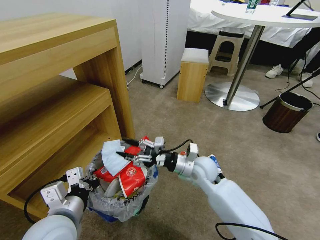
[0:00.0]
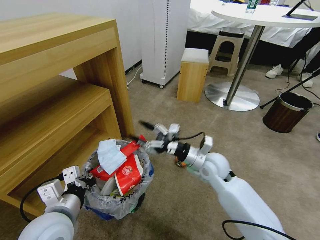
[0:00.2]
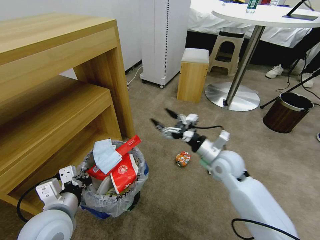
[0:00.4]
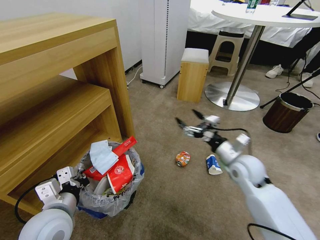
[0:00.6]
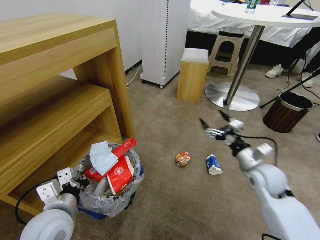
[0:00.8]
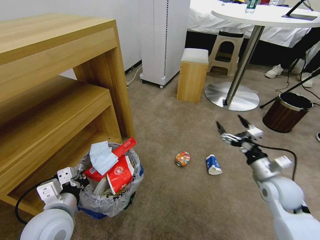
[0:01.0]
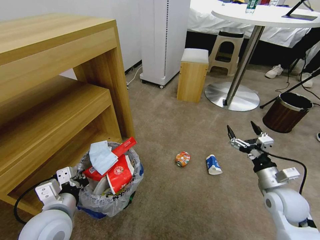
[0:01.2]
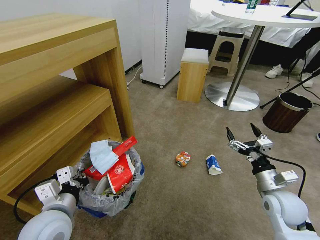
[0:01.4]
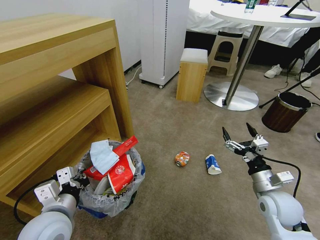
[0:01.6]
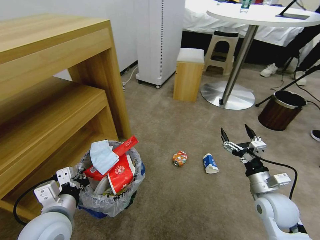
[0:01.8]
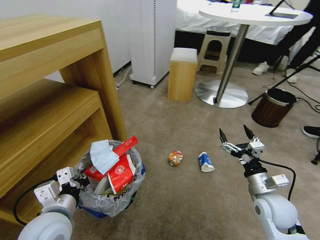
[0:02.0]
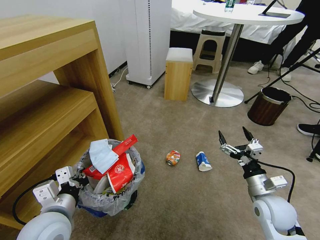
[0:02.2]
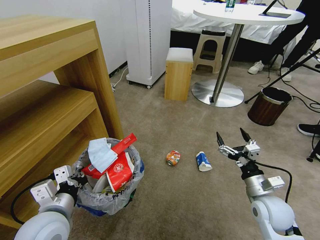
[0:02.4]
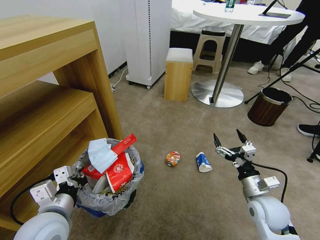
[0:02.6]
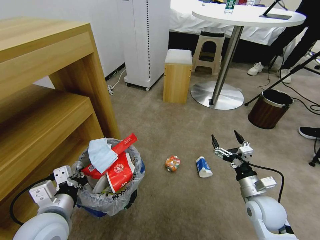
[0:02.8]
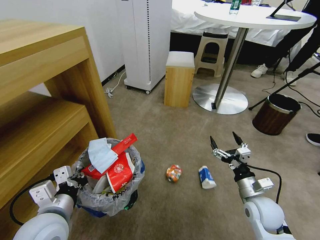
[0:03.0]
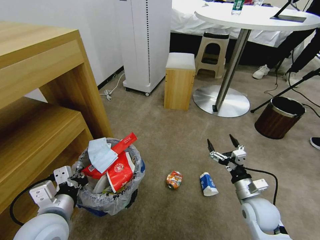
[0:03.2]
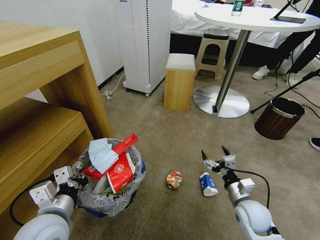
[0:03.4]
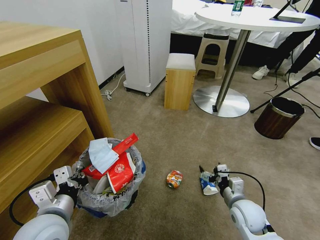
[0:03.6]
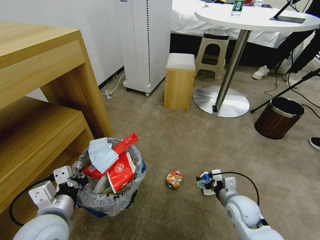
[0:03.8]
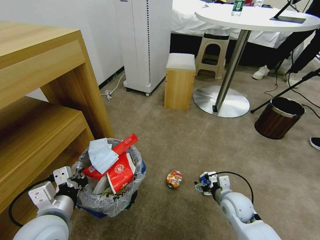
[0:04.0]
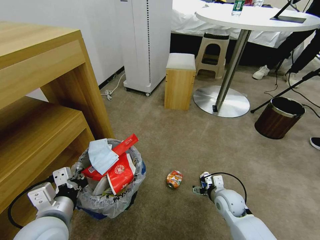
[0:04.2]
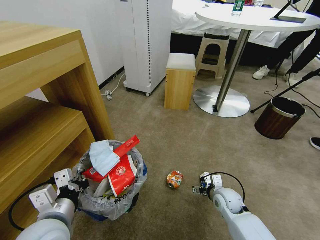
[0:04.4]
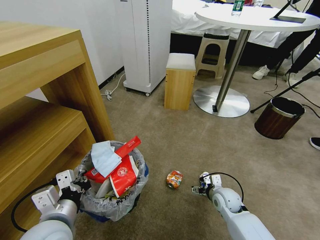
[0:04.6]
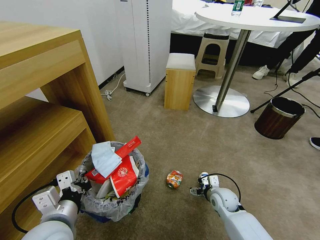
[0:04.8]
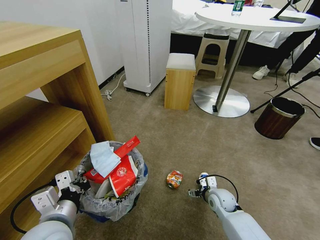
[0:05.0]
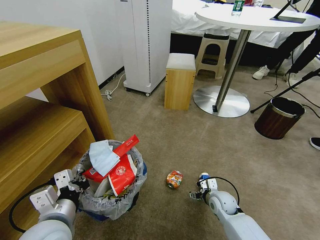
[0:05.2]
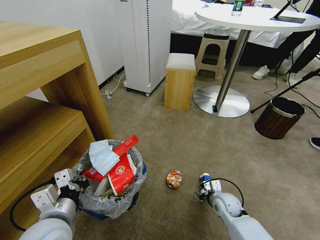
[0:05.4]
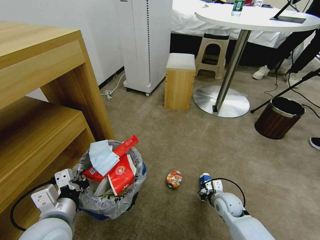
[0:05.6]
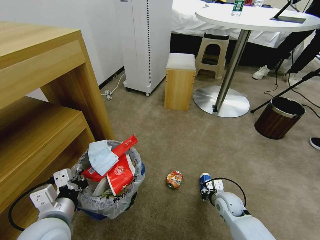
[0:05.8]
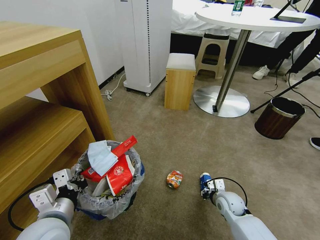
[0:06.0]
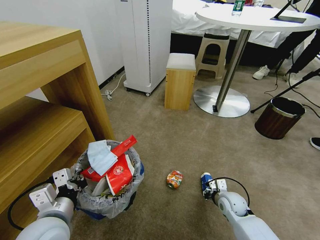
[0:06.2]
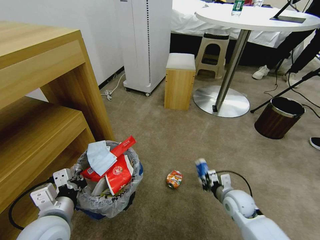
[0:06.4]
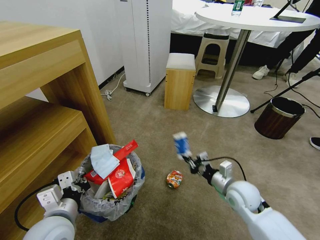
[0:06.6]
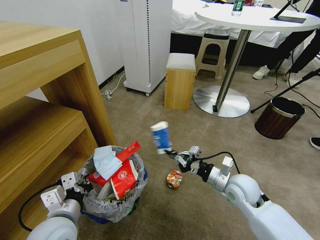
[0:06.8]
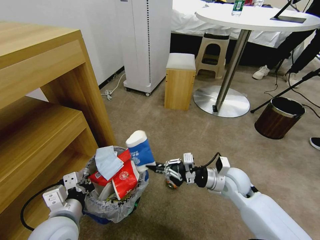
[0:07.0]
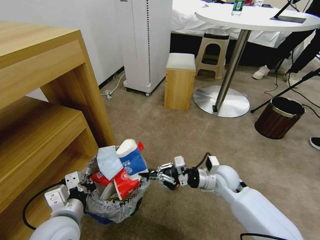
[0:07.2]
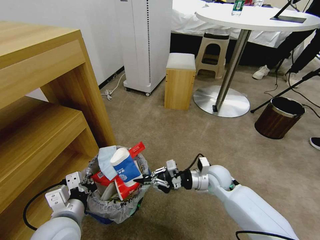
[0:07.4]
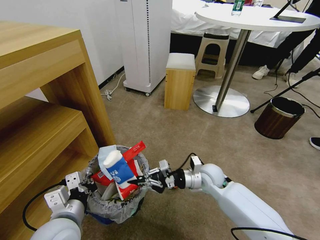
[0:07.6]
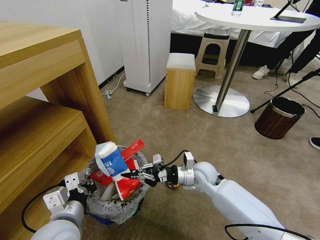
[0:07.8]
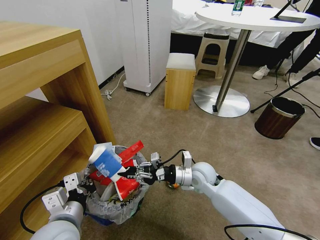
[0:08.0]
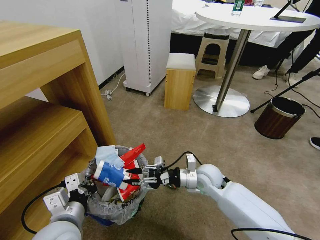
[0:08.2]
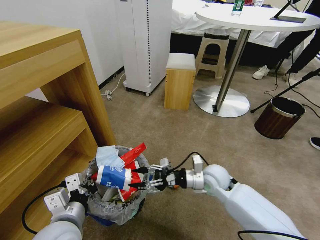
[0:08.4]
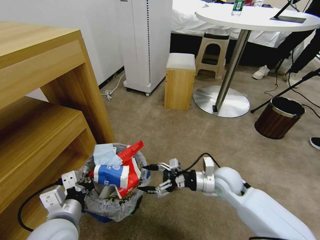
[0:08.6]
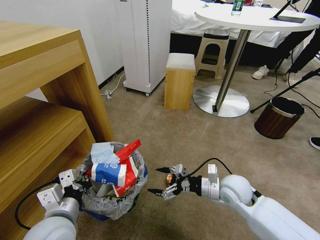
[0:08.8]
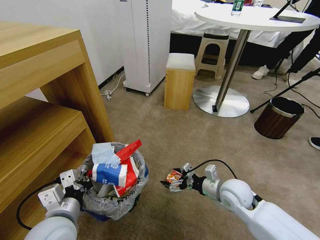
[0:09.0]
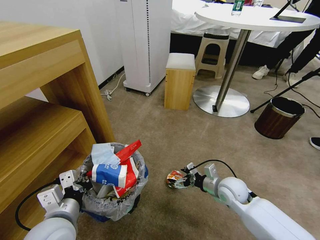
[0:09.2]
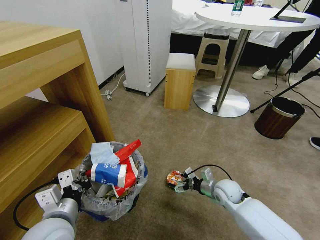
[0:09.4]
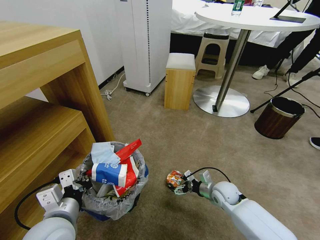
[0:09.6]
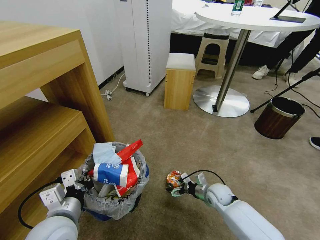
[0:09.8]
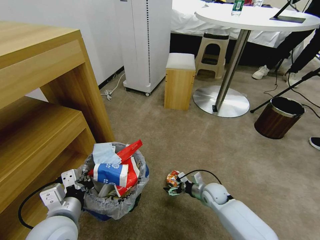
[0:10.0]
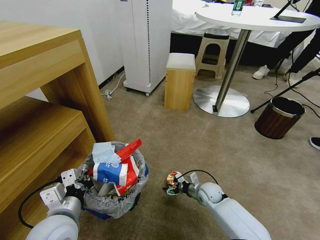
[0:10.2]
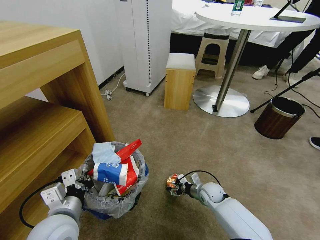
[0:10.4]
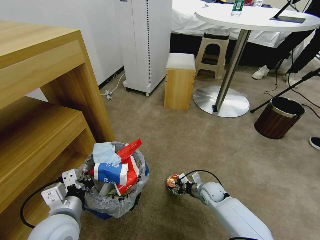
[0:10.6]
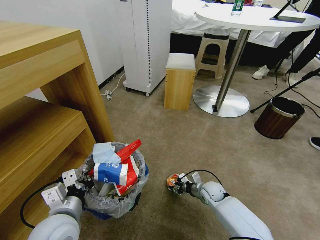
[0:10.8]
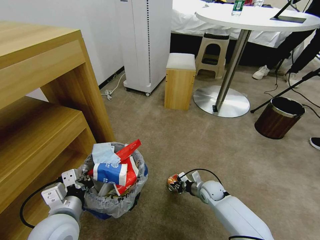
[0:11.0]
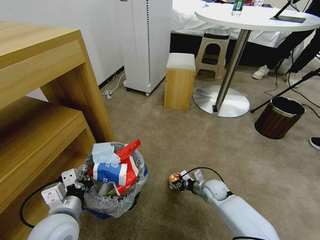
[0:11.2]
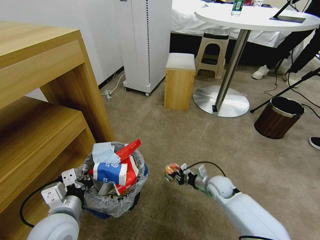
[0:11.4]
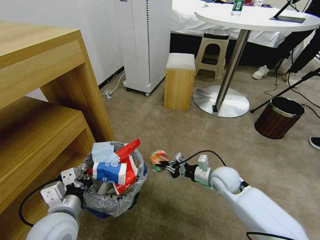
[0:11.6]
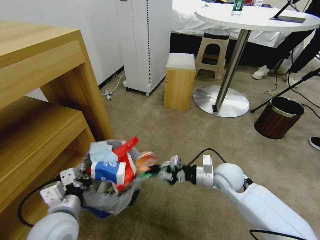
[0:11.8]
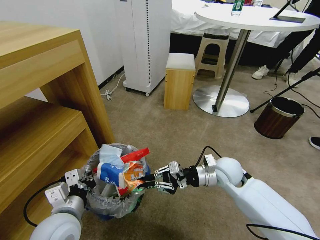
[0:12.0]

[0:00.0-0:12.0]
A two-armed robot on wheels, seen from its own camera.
Task of the whole recording: Pick up the trash bin and place the garbage on the floor into it.
0:00.0 to 0:01.6: The right gripper goes about 25 cm to the right and backward.
0:03.0 to 0:04.4: The right gripper shifts some 15 cm downward, forward and to the left.
0:04.4 to 0:06.0: The right gripper closes.
0:06.0 to 0:07.6: The right gripper travels upward, to the left and forward by roughly 15 cm.
0:07.6 to 0:09.0: The right gripper moves backward and to the right, roughly 10 cm, and opens its fingers.
0:09.0 to 0:10.4: The right gripper moves downward, about 15 cm.
0:10.4 to 0:12.0: The right gripper goes roughly 20 cm upward, and closes up.

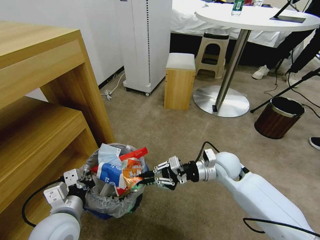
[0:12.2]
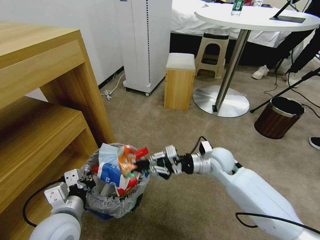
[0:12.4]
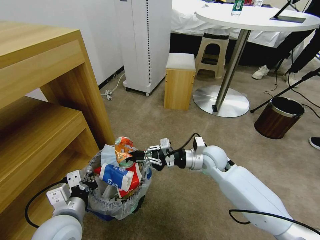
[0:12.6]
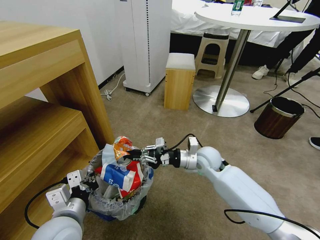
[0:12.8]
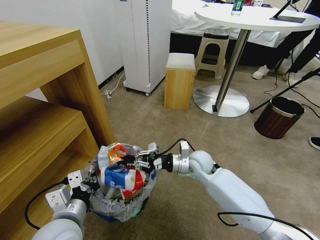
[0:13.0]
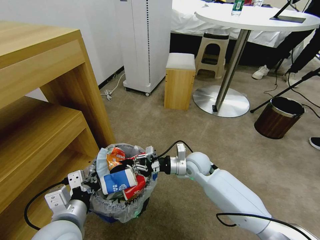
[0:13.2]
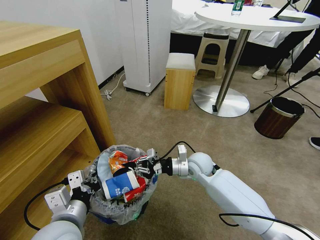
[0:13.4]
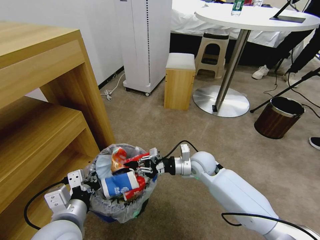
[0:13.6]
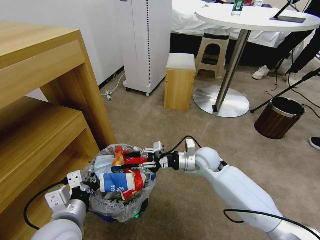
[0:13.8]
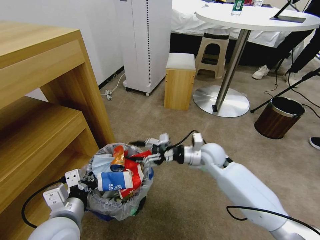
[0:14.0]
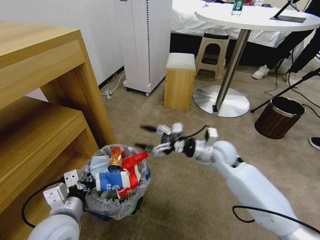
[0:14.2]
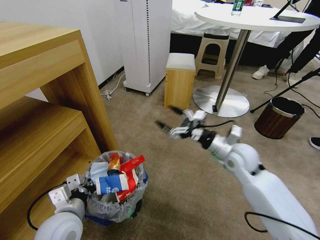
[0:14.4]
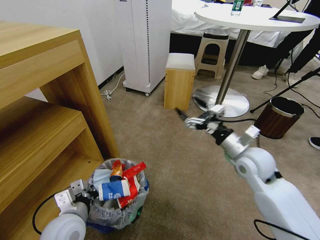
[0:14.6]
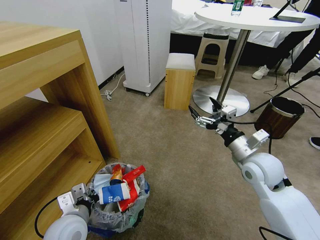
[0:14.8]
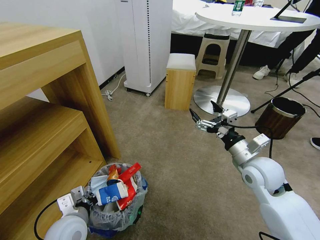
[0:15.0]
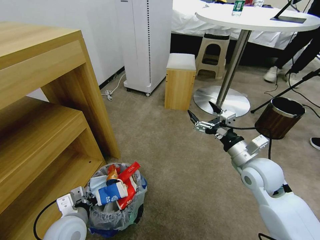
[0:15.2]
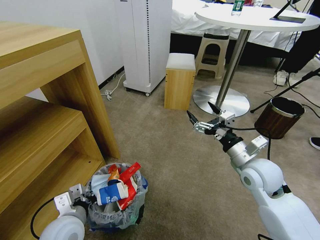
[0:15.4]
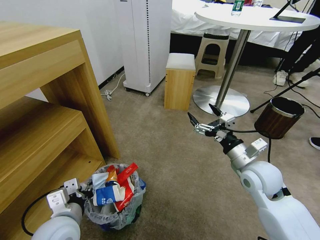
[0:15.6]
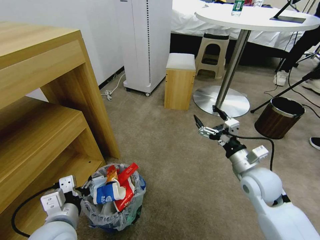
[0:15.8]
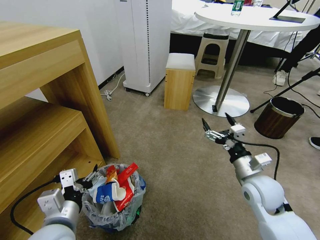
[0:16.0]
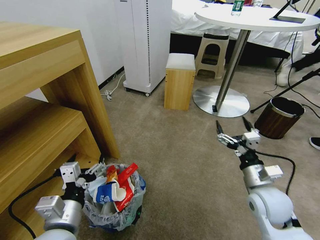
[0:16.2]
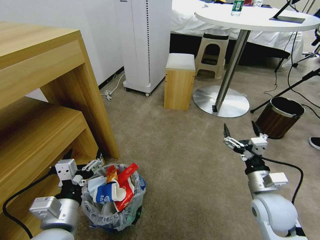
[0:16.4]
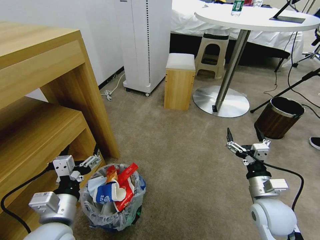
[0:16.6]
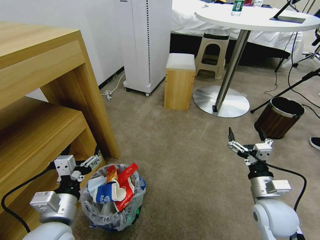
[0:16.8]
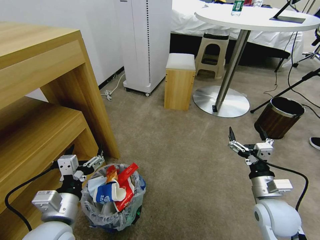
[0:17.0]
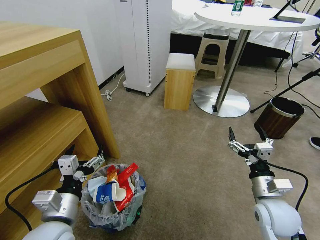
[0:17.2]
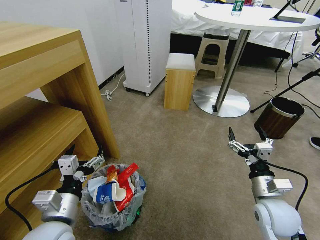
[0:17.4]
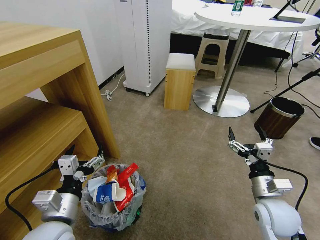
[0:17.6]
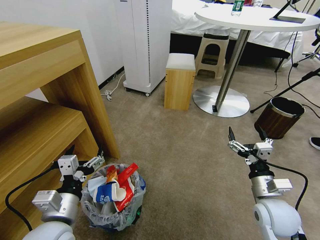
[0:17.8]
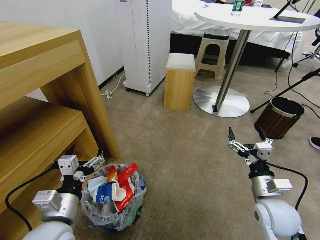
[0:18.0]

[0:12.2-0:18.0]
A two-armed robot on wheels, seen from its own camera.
Task of the whole recording: Pick up the trash bin and place the garbage on the floor into it.
0:12.2 to 0:13.6: The right gripper moves to the left, roughly 5 cm.
0:13.6 to 0:15.0: The right gripper is displaced to the right, upward and backward by some 20 cm, and opens its fingers, while the left gripper is displaced downward by about 10 cm.
0:15.0 to 0:16.6: The left gripper shifts about 5 cm upward, and opens; the right gripper is displaced backward and downward by some 10 cm.
0:16.6 to 0:18.0: Both grippers stay about where they are.
